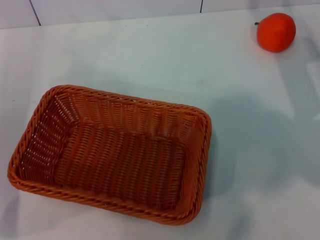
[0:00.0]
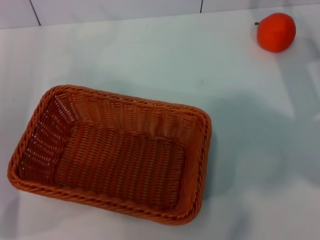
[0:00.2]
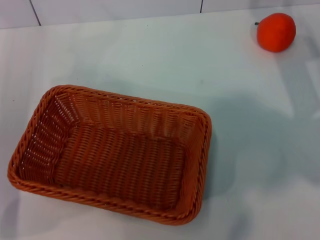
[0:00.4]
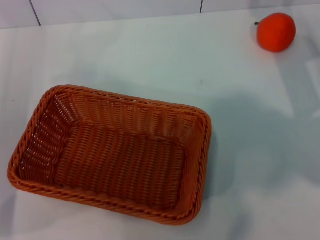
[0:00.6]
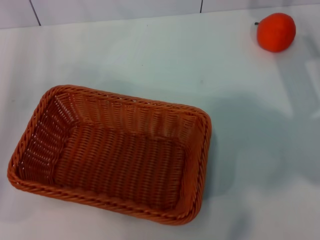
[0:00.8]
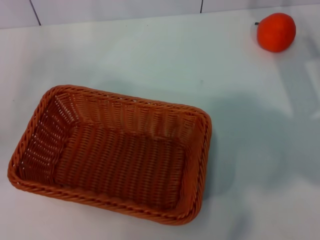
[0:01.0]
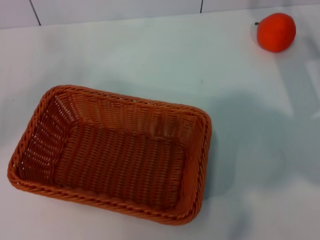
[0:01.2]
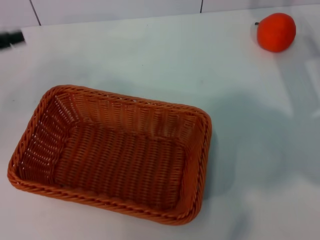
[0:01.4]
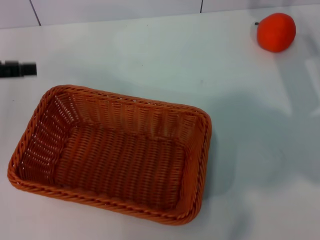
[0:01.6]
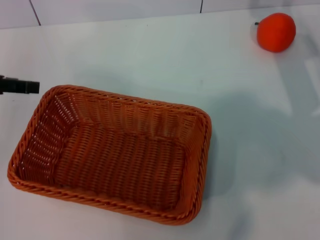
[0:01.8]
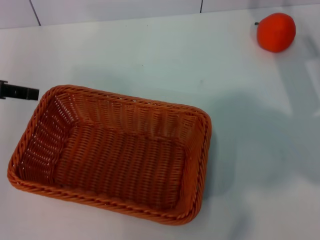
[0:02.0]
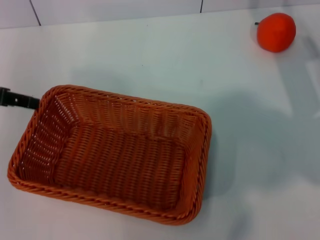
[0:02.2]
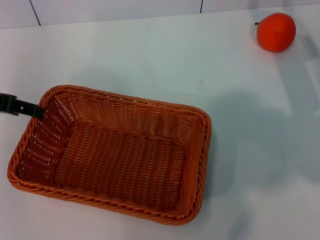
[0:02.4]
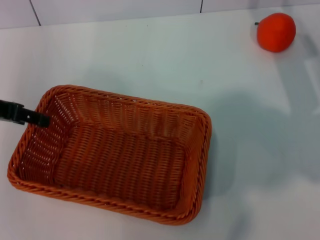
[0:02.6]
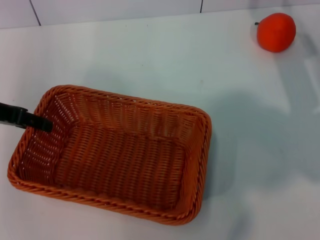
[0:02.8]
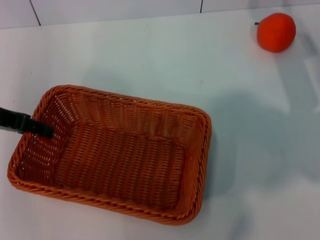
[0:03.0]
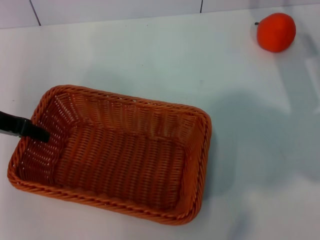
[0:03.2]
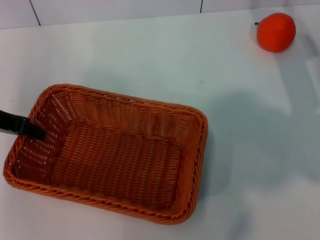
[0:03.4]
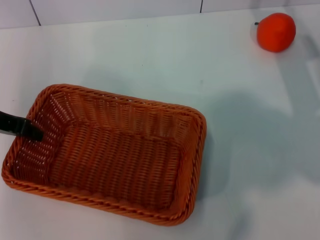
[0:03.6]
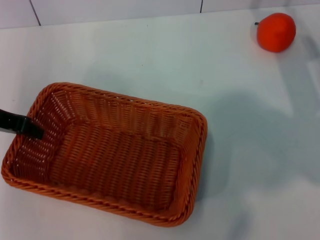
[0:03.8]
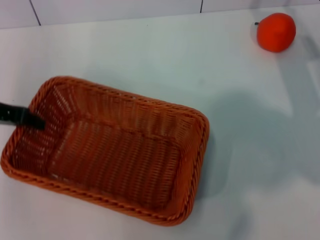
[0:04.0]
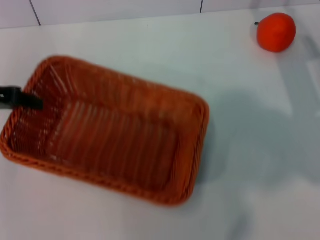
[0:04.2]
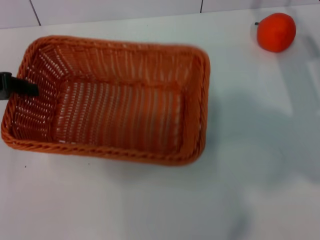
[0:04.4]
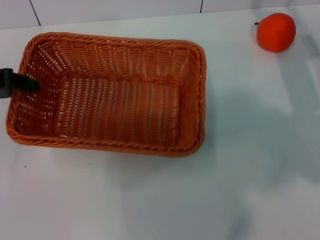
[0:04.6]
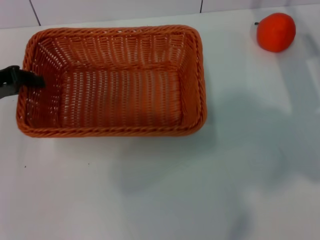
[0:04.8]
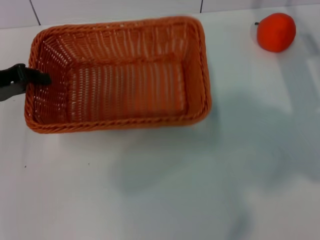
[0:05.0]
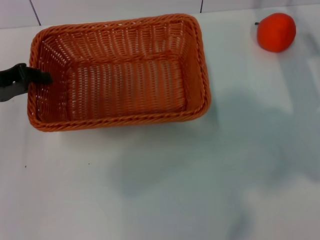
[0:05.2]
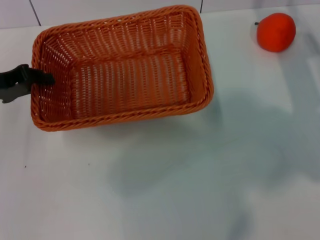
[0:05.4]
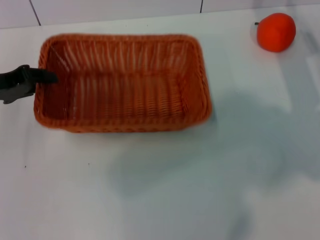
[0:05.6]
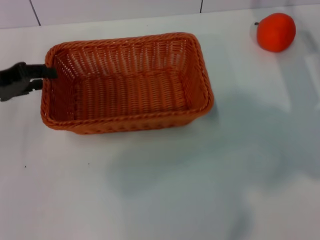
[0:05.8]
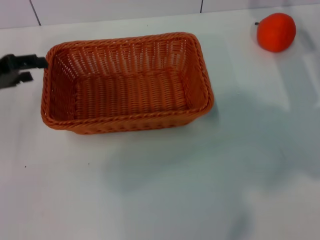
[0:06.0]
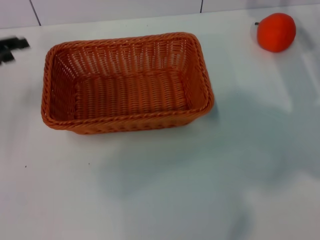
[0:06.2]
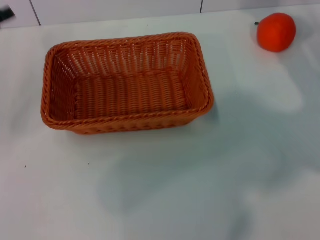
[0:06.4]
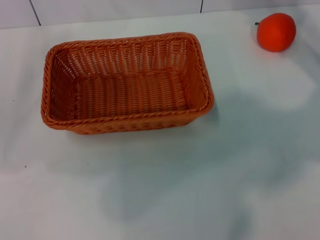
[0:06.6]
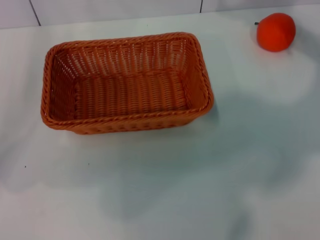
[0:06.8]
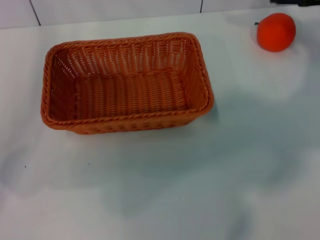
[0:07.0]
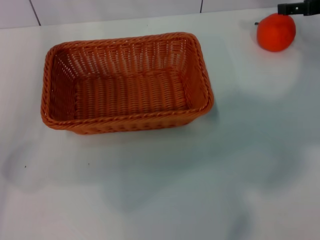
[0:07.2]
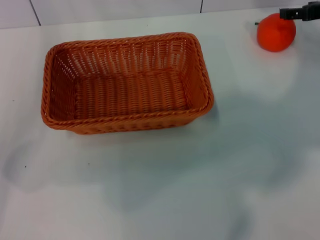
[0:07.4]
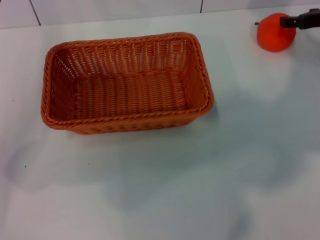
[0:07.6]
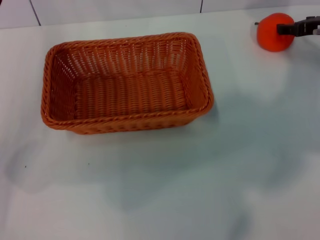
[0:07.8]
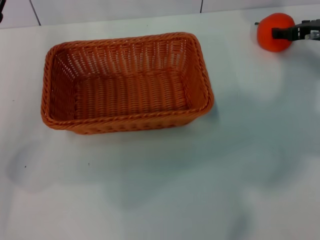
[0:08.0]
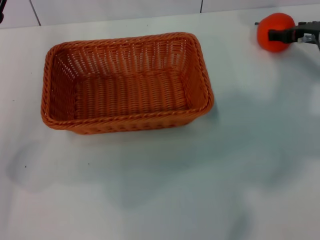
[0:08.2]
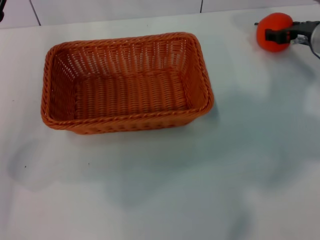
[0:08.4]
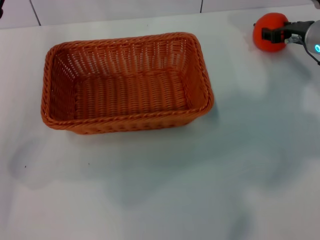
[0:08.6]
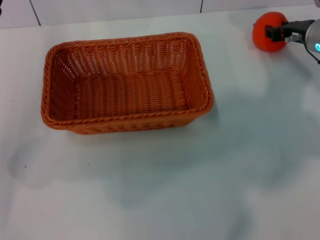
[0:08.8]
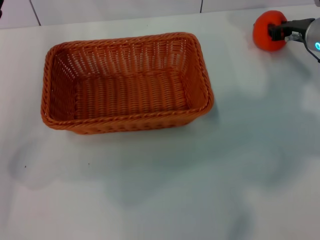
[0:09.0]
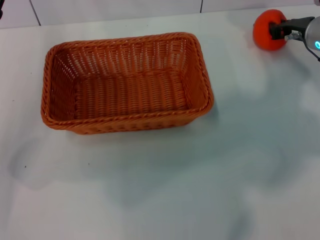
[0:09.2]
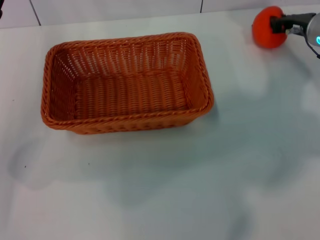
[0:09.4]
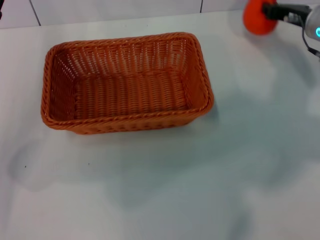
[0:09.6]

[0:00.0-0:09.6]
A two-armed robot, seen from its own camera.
Task of the whole recording: the left gripper pick up the yellow basket and place it horizontally in the middle of the table, the right gripper pick up the orange and place it into the yellow basket.
Step, 0:00.0 to 0:04.0: Pick up the light basket with the left gripper.
Step, 0:04.2 to 0:05.6: Place the light basket in the center of view with the left gripper.
Step, 0:05.8 to 0:09.6: Pick up the orange with the right gripper.
0:00.0 to 0:01.6: The left gripper goes approximately 10 cm upward.
0:01.6 to 0:03.2: The left gripper moves to the right, some 5 cm.
0:03.2 to 0:04.8: The left gripper closes.
0:04.8 to 0:06.4: The left gripper opens up.
0:06.4 to 0:08.0: The left gripper shifts about 5 cm to the right.
0:08.0 to 0:09.6: The right gripper closes up.

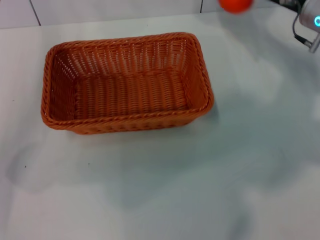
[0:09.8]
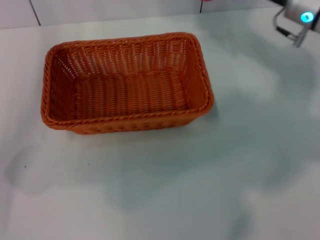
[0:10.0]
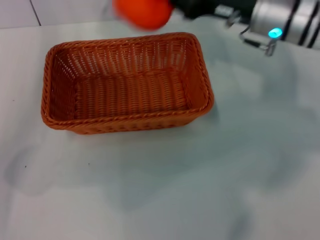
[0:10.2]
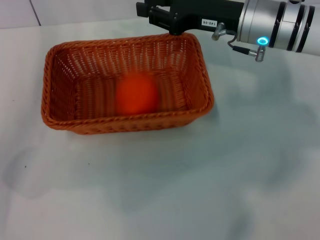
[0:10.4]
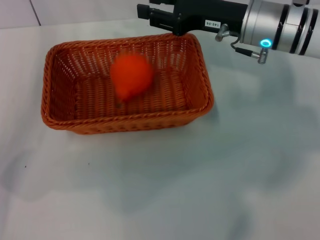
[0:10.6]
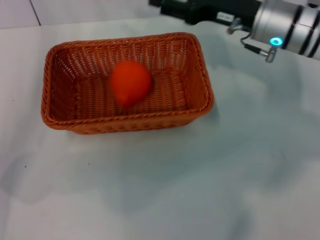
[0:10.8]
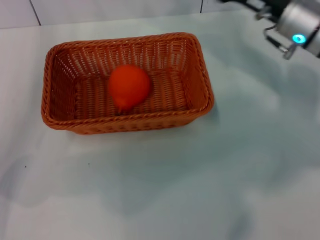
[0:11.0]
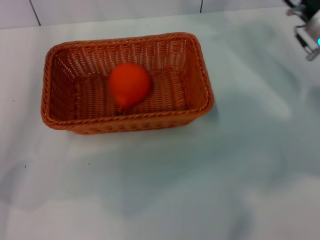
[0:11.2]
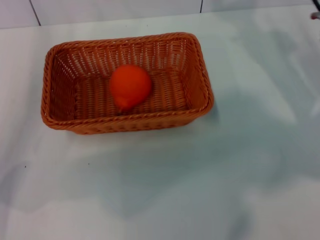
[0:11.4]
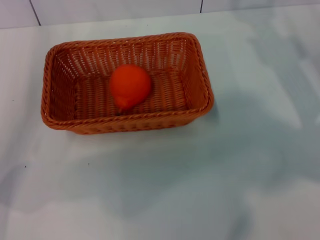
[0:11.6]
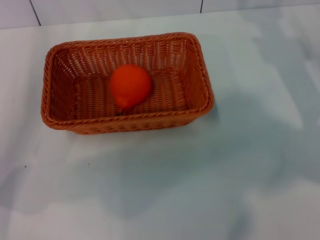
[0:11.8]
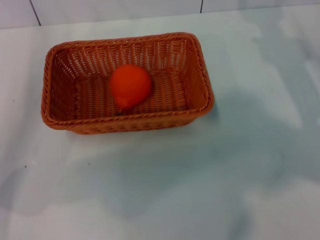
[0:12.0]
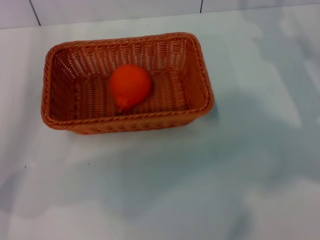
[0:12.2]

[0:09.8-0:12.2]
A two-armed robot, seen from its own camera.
Task of the whole recording: the left gripper pick up the yellow basket and place it horizontally in the middle of the table, the right gripper pick up the orange and place it into the yellow basket.
Step, 0:09.8 to 0:10.4: Place the orange into the light basket with the right gripper.
0:09.8 to 0:11.0: The right gripper opens its fingers.
0:11.0 to 0:12.2: The right gripper shifts roughly 10 cm to the right.
